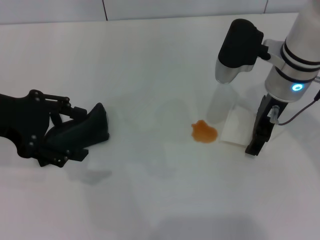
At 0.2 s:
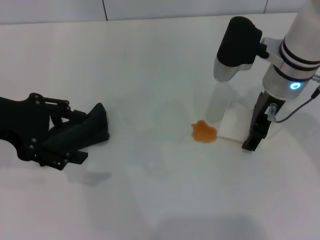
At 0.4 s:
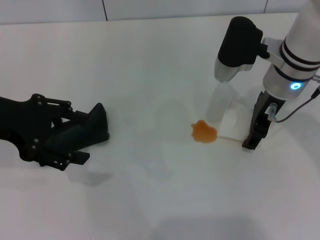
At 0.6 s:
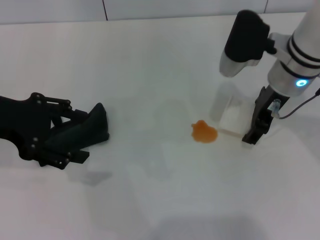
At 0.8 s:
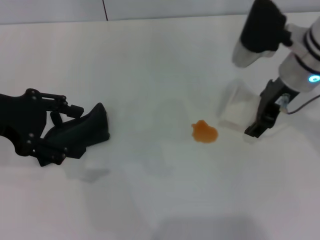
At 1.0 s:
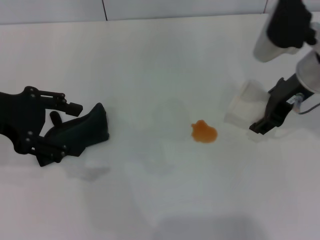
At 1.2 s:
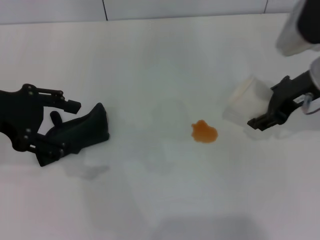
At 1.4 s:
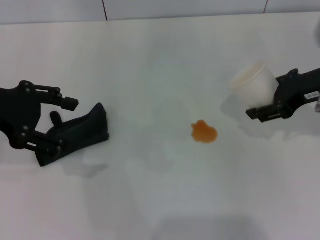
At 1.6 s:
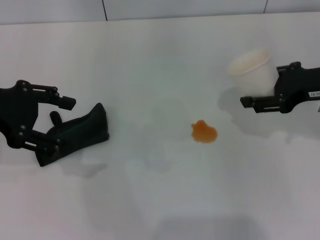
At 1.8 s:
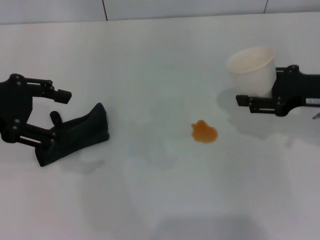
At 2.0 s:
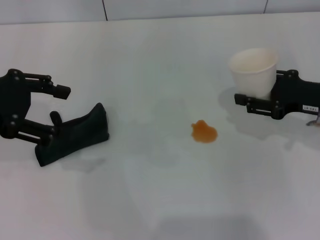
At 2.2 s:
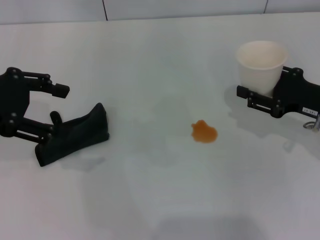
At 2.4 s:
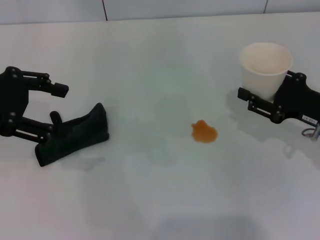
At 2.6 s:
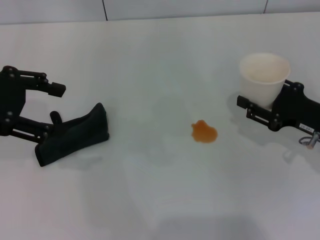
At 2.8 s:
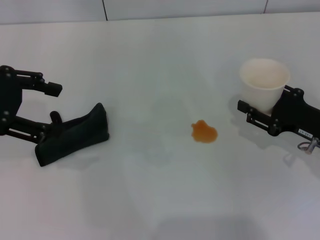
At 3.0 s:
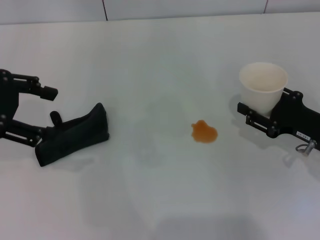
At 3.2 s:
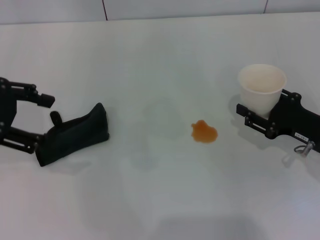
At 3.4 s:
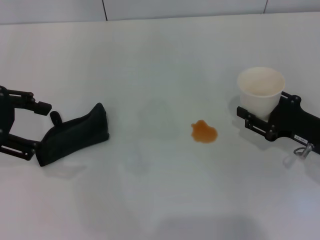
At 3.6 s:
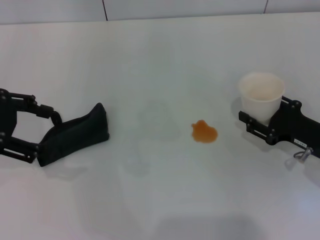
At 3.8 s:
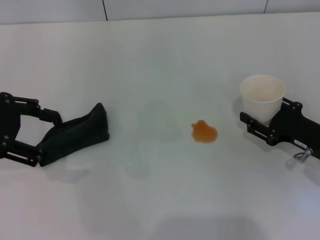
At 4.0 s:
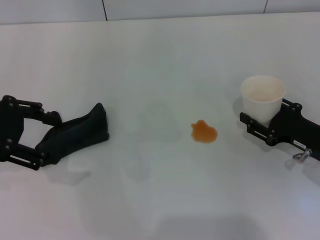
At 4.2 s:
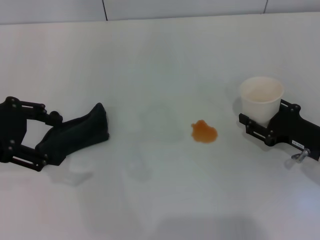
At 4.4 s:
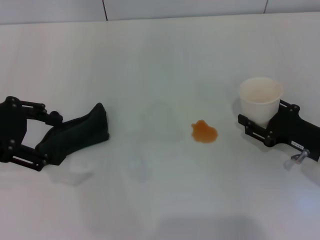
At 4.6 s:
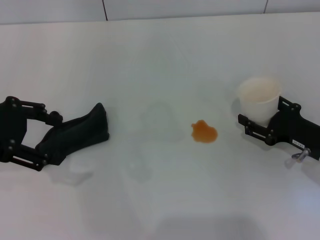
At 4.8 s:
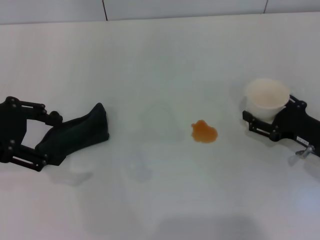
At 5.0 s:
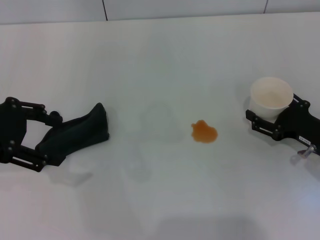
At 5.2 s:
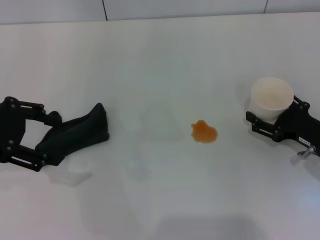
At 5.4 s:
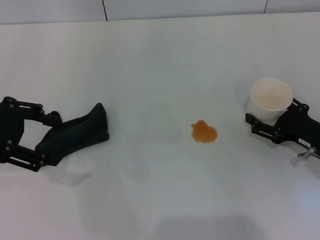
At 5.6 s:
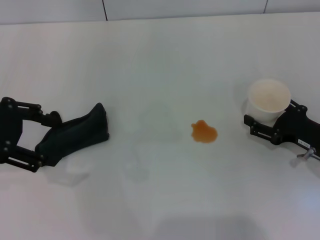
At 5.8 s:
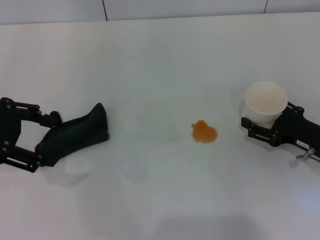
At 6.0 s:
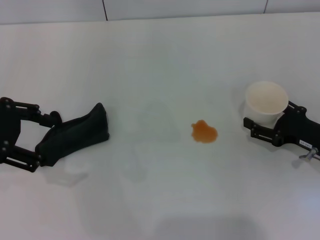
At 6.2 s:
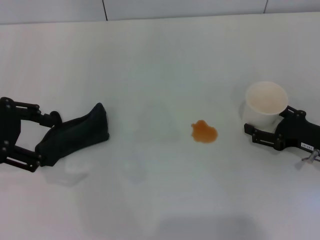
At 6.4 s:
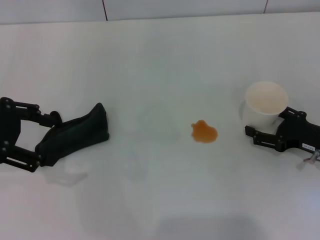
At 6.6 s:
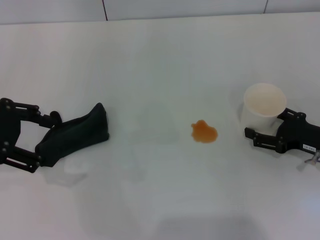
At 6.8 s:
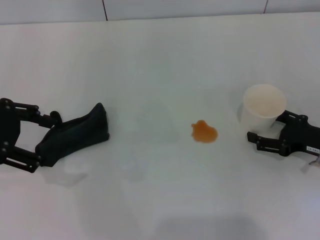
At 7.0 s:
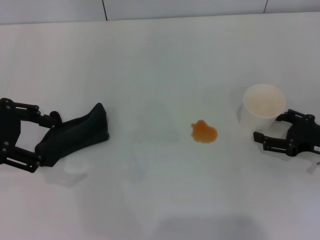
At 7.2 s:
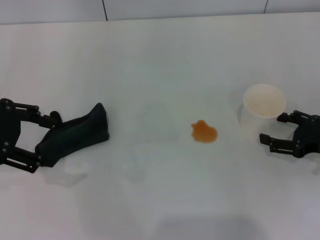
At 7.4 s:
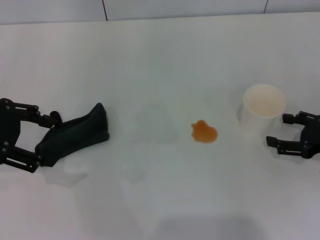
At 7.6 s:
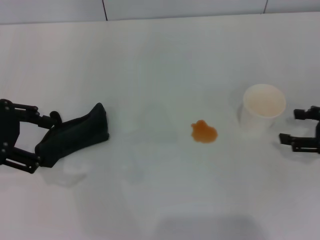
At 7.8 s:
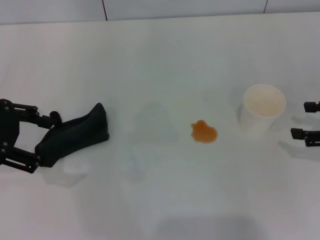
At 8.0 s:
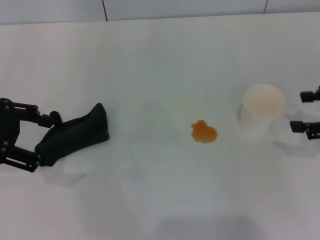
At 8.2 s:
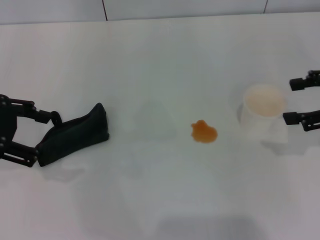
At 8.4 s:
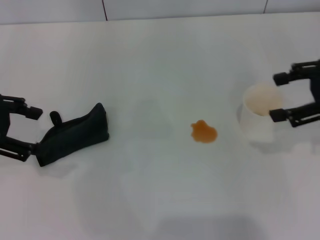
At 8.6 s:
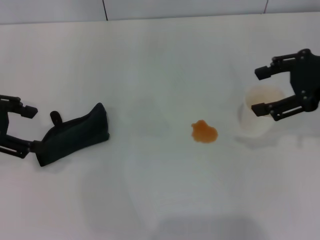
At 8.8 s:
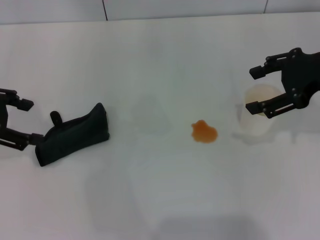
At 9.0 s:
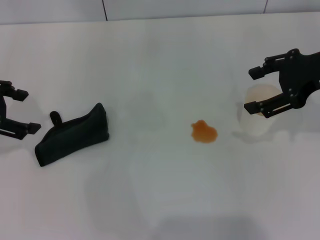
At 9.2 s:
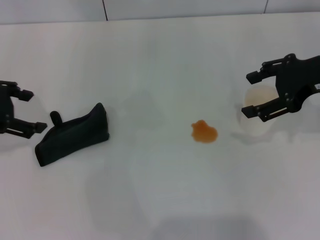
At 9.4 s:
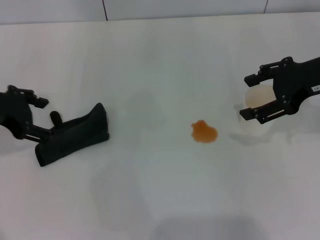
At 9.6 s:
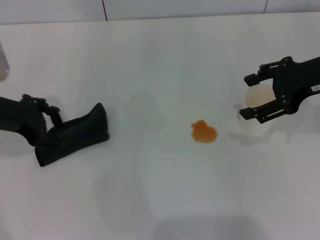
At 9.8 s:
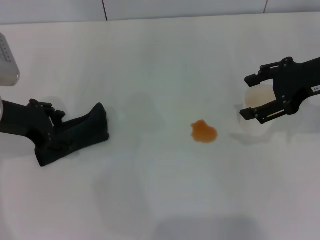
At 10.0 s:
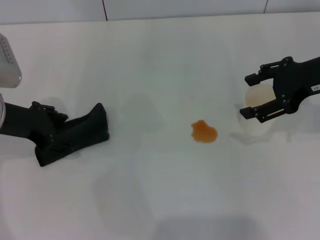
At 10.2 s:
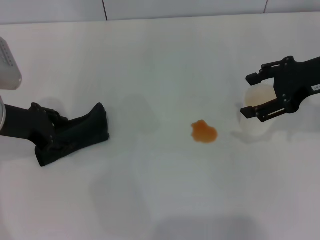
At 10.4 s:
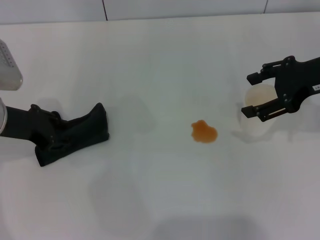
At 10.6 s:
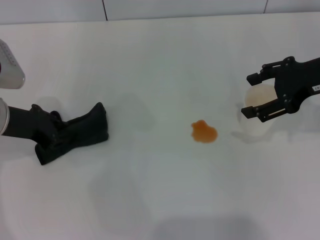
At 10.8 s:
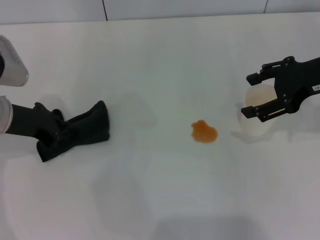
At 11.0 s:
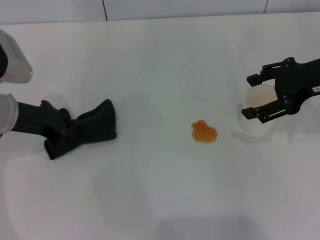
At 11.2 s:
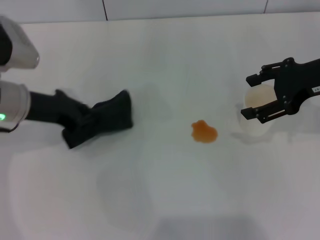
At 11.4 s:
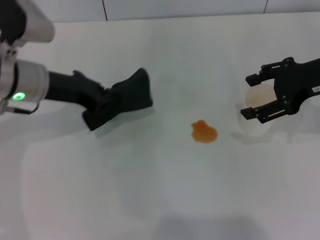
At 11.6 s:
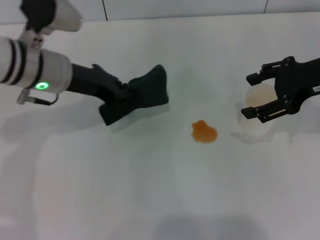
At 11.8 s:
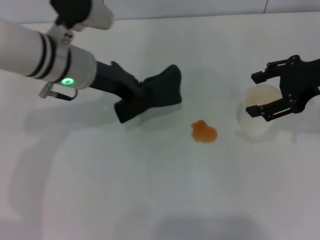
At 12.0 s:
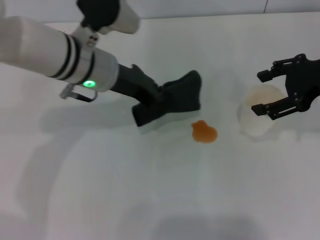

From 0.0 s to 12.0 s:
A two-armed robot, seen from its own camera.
Step, from 0.4 s to 7.2 s: Stand the paper cup upright with the right gripper.
Step, from 7.6 s to 10.8 s: Grasp the rag with the left gripper.
From 0.0 s to 1.6 s: The right gripper moves to the right and backward, roughly 15 cm, and closes its fingers.
From 1.6 s to 3.0 s: The right gripper heads downward, covering approximately 15 cm.
From 3.0 s to 4.4 s: There are only small adjustments of the grippers.
From 4.4 s to 6.0 s: The right gripper opens up.
From 6.0 s to 7.6 s: The right gripper is displaced upward and to the right by approximately 10 cm.
From 7.6 s to 9.0 s: The right gripper goes about 15 cm upward, to the left and forward.
From 9.0 s to 10.4 s: The left gripper moves downward, some 10 cm.
From 10.4 s to 12.0 s: The left gripper heads to the right, covering approximately 15 cm, and closes its fingers.

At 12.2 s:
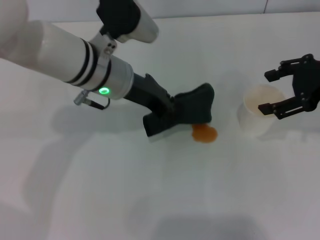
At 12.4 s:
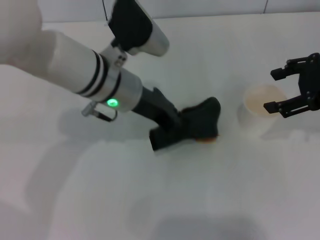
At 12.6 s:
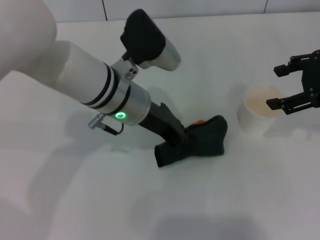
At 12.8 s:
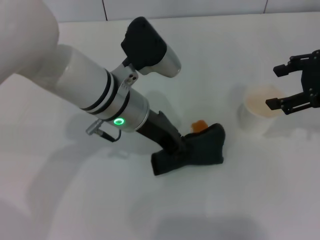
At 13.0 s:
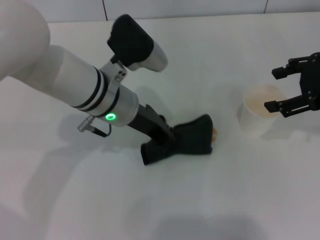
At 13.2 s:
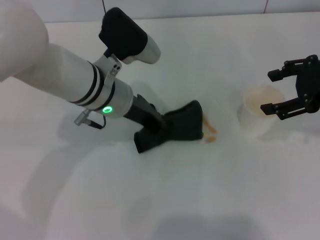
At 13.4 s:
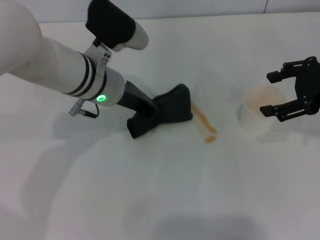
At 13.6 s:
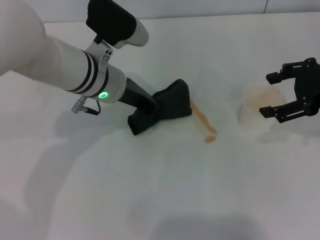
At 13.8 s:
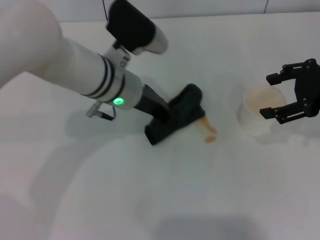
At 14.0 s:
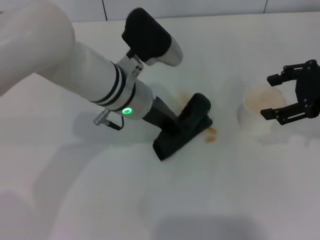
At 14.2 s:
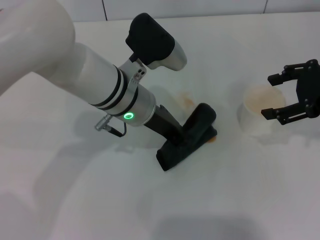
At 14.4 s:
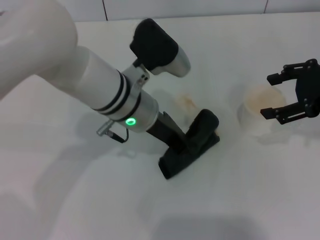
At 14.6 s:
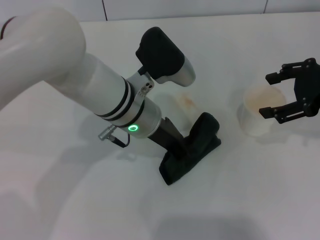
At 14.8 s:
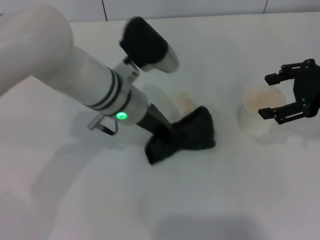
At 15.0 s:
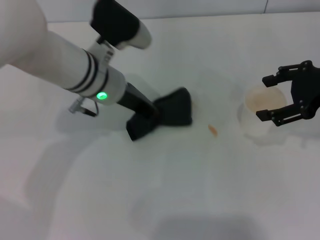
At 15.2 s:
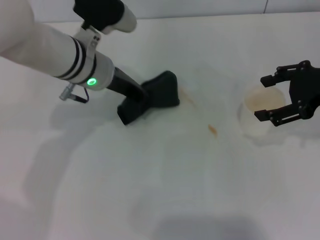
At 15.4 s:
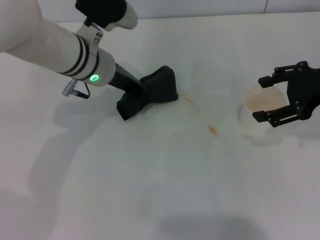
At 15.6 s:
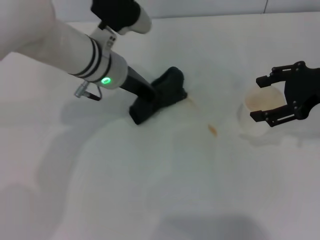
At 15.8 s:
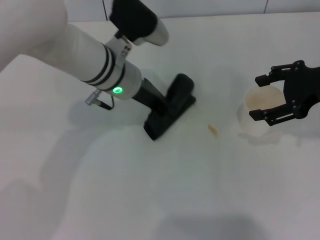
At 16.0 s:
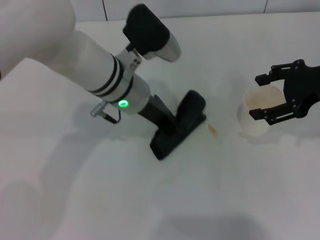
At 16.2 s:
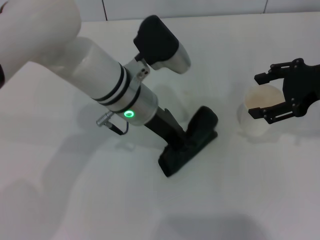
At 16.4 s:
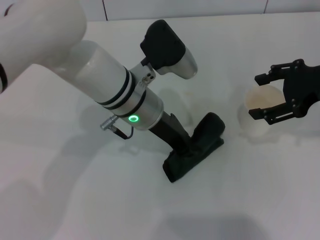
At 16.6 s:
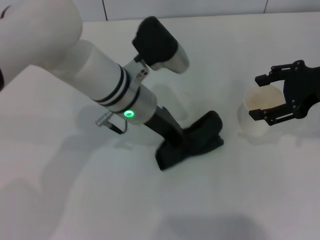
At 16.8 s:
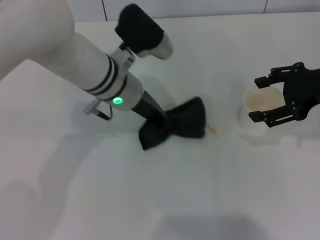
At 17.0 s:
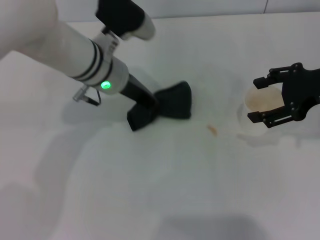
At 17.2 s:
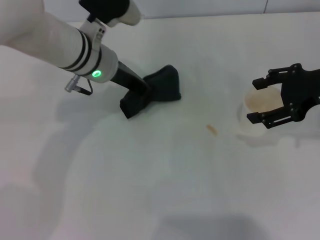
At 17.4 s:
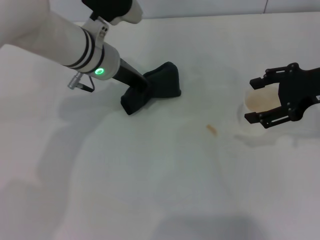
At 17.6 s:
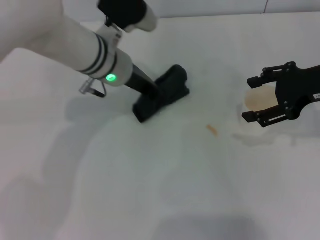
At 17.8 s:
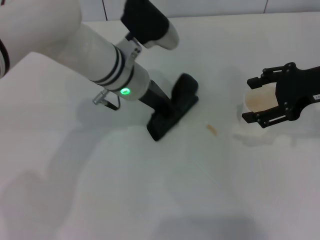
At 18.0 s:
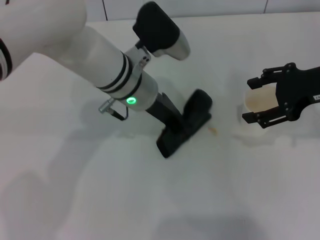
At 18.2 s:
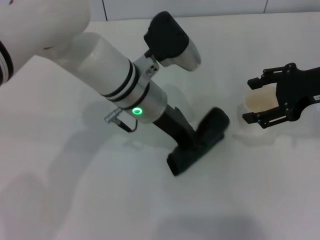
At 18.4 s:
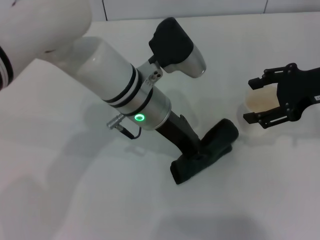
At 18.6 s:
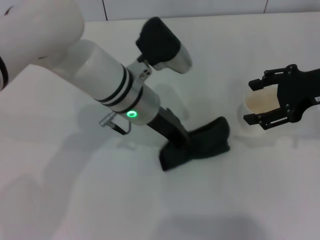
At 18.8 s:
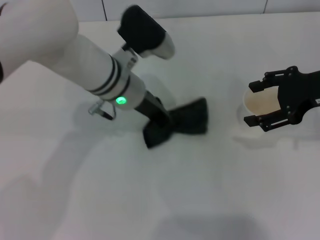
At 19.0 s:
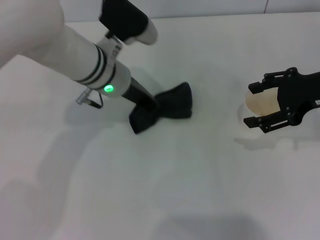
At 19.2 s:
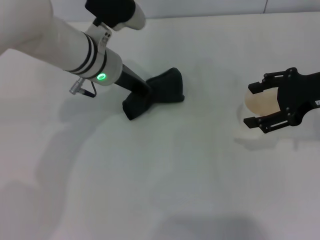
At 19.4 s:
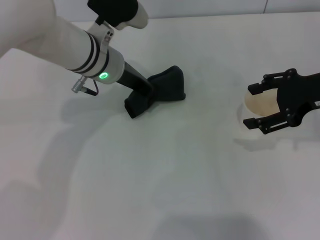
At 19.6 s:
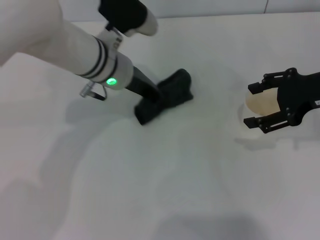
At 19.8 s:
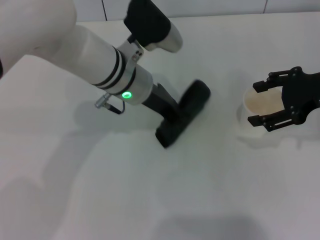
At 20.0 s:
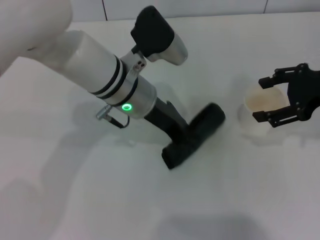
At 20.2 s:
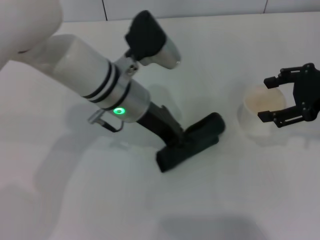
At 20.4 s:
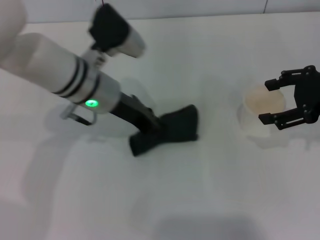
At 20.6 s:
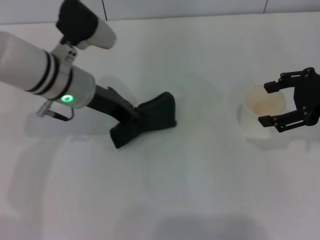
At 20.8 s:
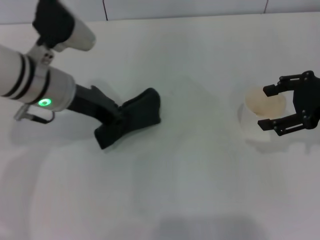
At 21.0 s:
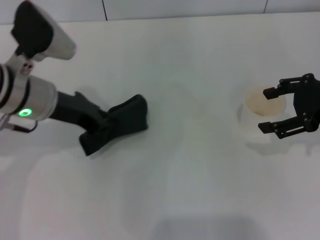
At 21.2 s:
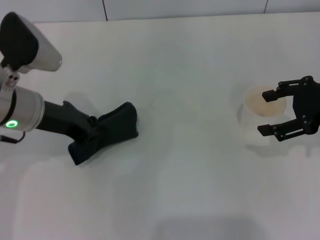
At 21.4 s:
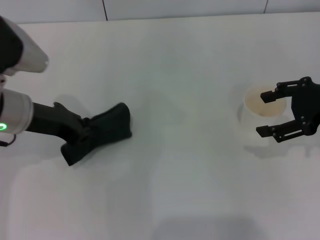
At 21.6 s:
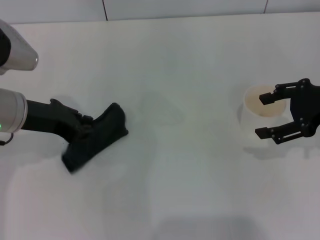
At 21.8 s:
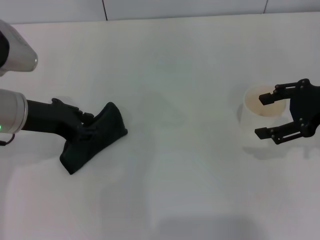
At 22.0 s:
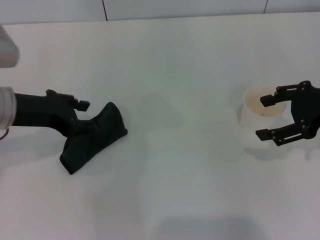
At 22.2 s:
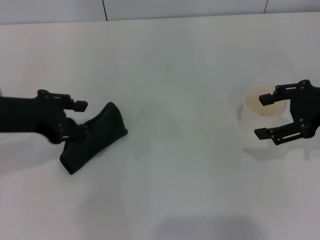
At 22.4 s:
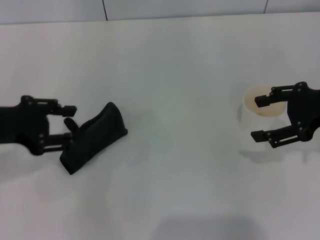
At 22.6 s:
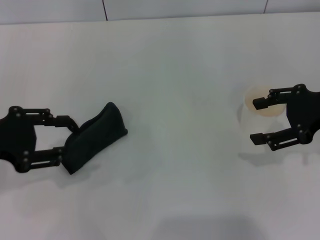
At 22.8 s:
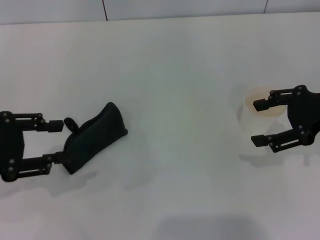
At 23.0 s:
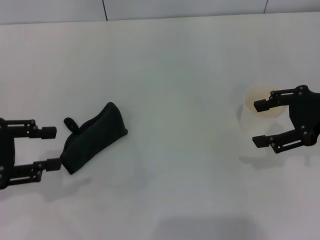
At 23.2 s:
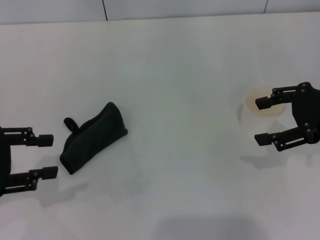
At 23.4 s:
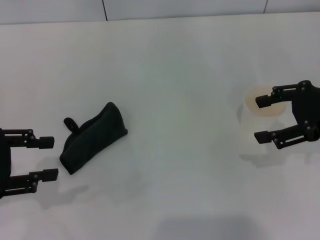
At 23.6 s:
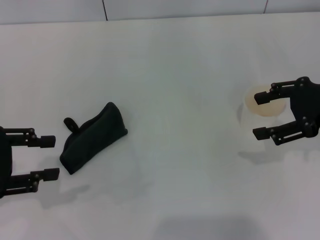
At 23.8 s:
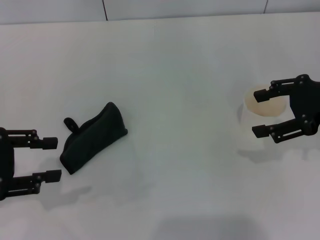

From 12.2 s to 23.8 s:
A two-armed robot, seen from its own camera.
Step, from 12.2 s to 21.2 s: Wipe the stains off the table with the left gripper.
Step, from 21.4 s to 22.2 s: Place the rag on the table with the left gripper.
From 12.2 s to 13.6 s: There are only small adjustments of the grippers.
From 15.0 s to 16.6 s: The grippers stay close to where they were, moving slightly.
From 18.0 s to 19.4 s: The left gripper ends up about 5 cm from where it was.
From 19.4 s to 21.0 s: The left gripper goes approximately 10 cm to the left and backward.
From 21.0 s to 22.4 s: The left gripper travels to the left and backward by approximately 10 cm, and opens its fingers.
From 22.4 s to 23.8 s: The left gripper ends up roughly 5 cm from where it was.
